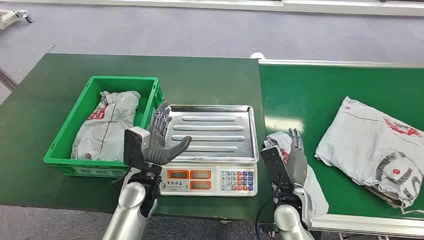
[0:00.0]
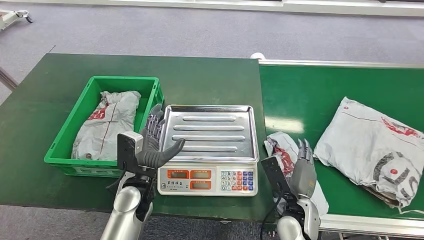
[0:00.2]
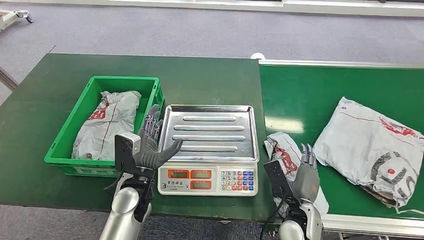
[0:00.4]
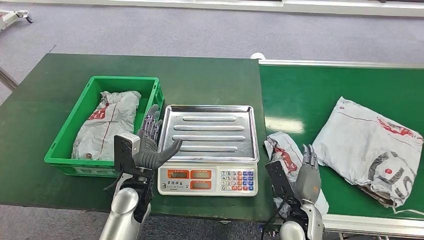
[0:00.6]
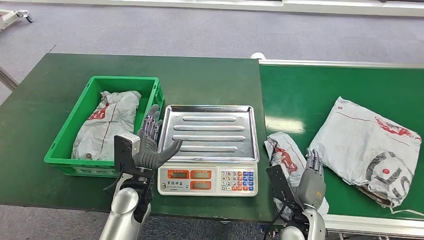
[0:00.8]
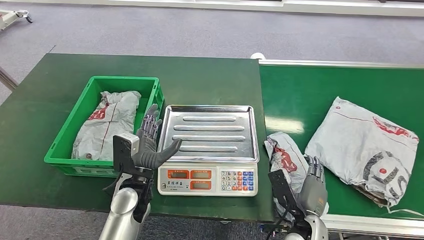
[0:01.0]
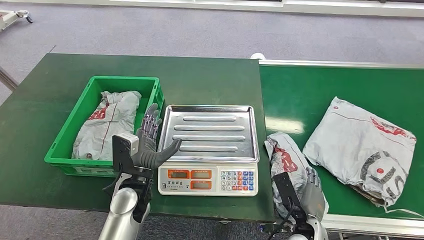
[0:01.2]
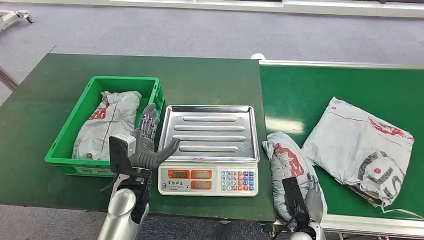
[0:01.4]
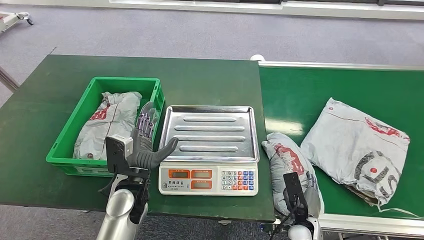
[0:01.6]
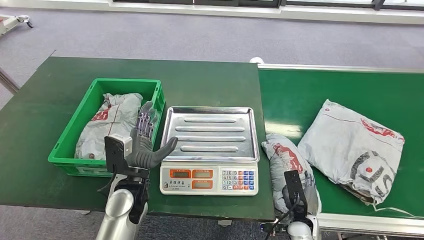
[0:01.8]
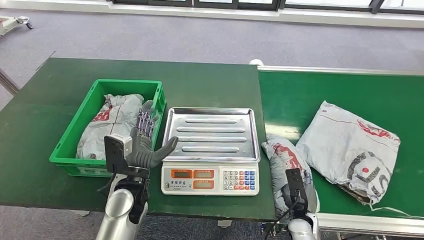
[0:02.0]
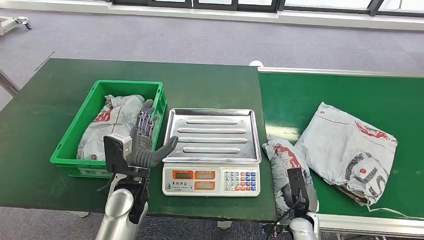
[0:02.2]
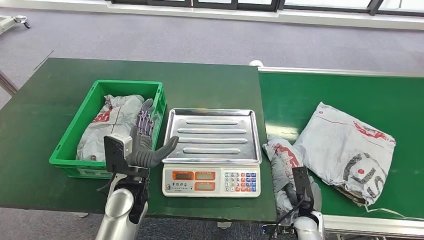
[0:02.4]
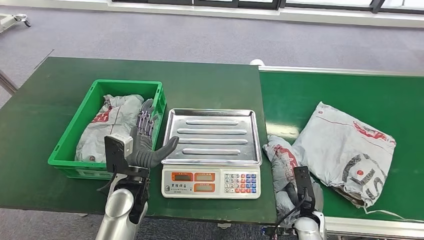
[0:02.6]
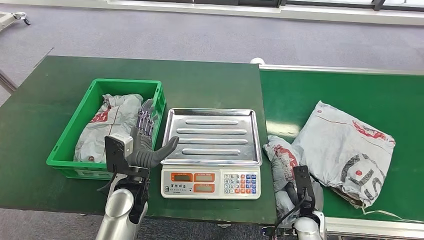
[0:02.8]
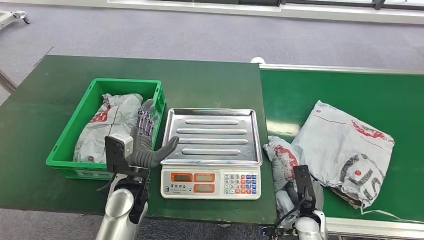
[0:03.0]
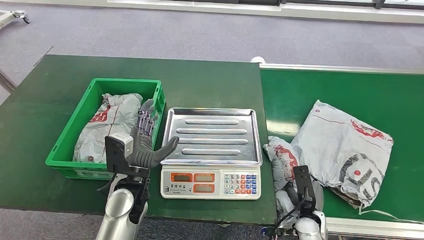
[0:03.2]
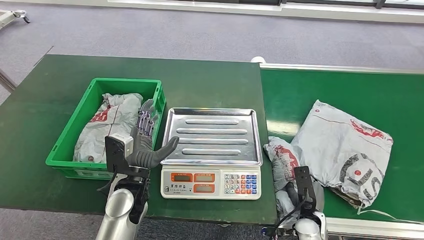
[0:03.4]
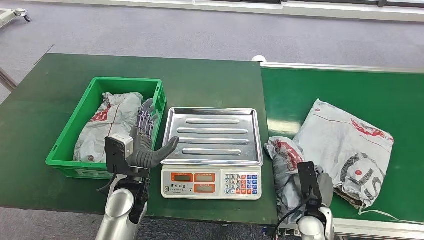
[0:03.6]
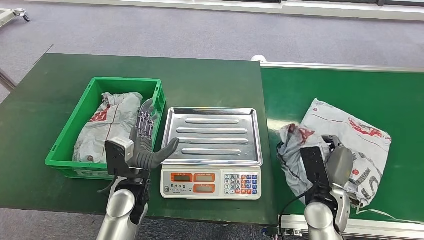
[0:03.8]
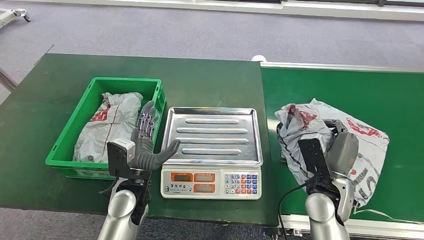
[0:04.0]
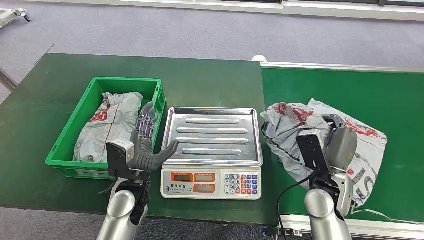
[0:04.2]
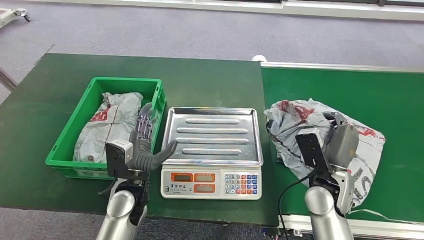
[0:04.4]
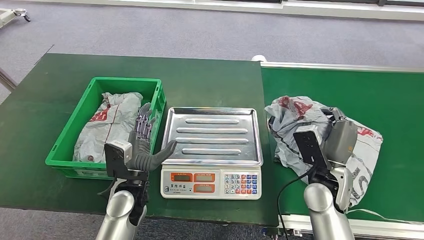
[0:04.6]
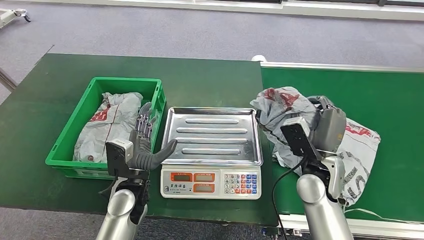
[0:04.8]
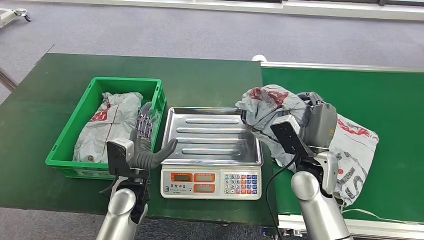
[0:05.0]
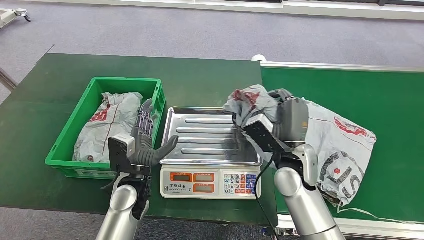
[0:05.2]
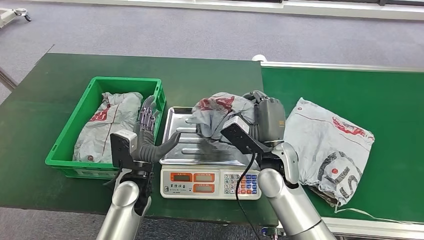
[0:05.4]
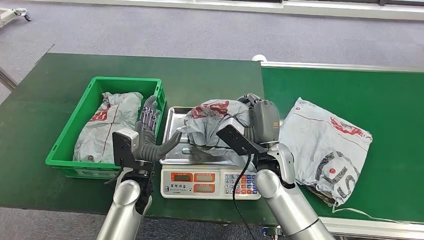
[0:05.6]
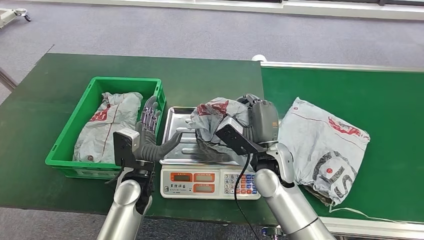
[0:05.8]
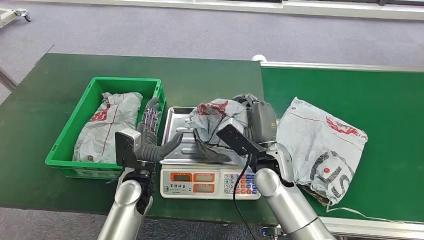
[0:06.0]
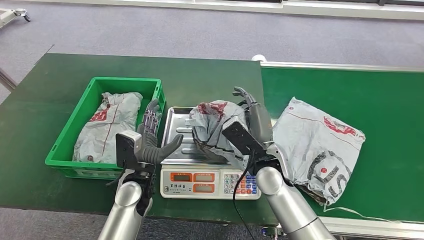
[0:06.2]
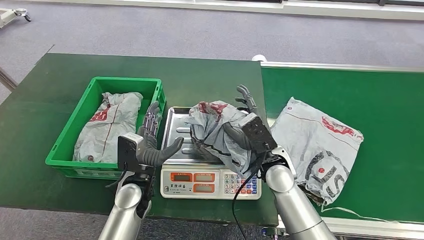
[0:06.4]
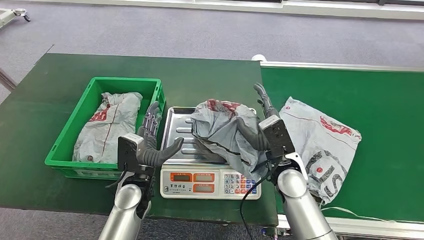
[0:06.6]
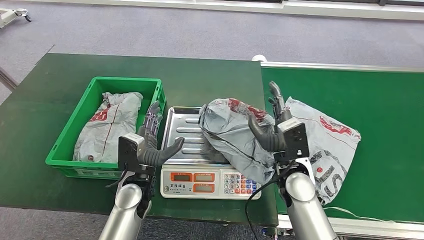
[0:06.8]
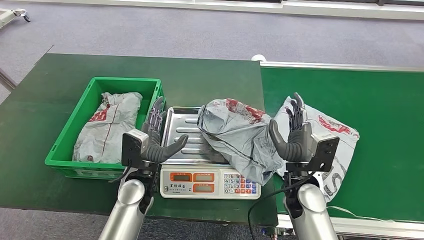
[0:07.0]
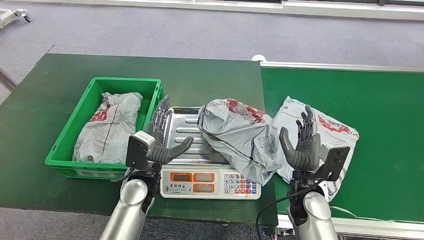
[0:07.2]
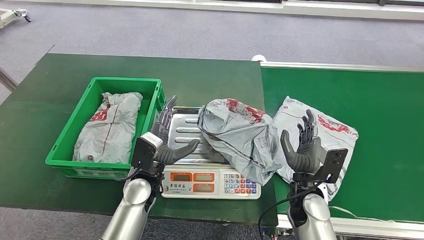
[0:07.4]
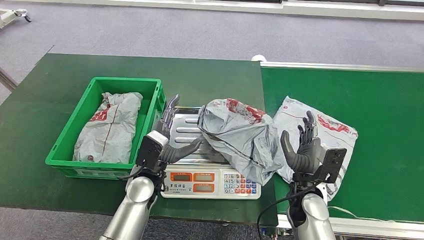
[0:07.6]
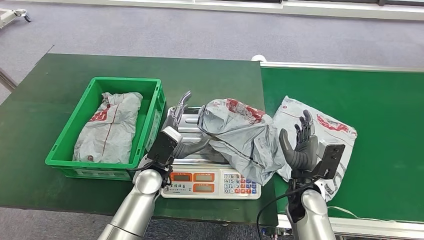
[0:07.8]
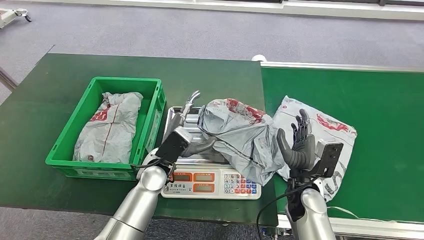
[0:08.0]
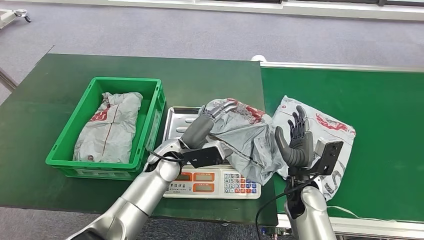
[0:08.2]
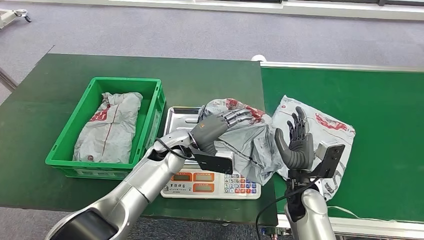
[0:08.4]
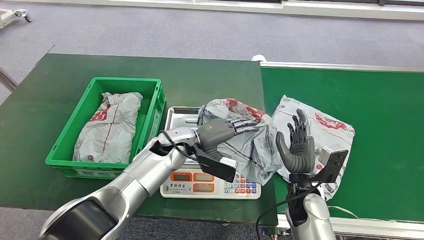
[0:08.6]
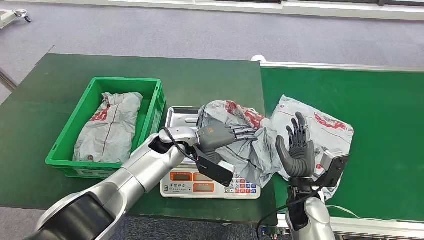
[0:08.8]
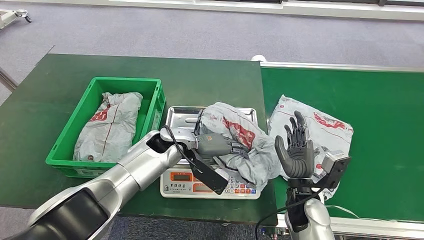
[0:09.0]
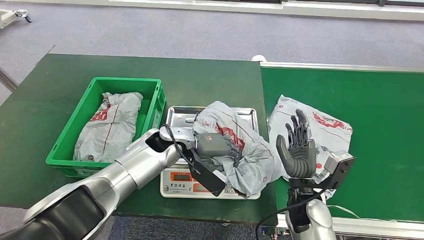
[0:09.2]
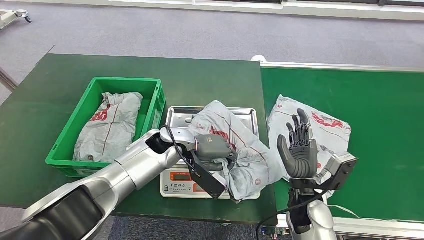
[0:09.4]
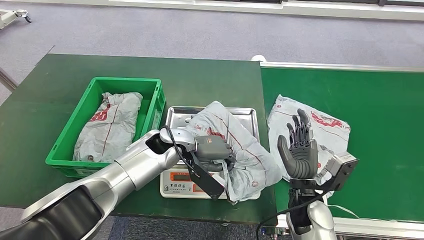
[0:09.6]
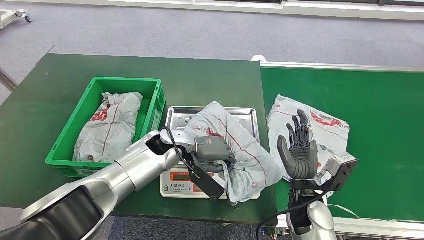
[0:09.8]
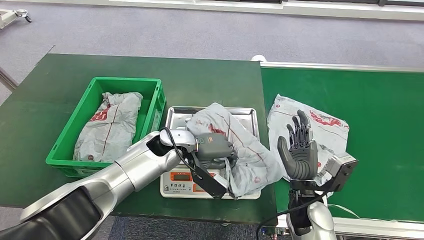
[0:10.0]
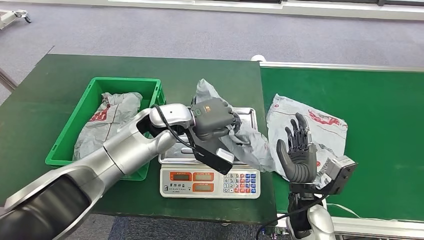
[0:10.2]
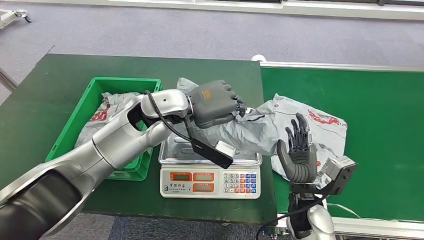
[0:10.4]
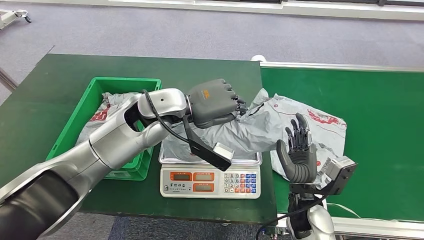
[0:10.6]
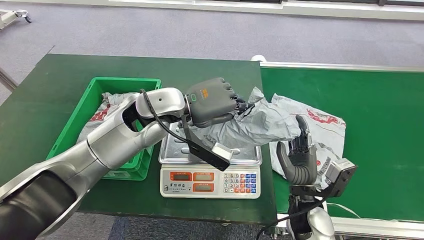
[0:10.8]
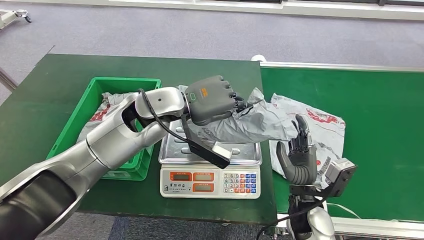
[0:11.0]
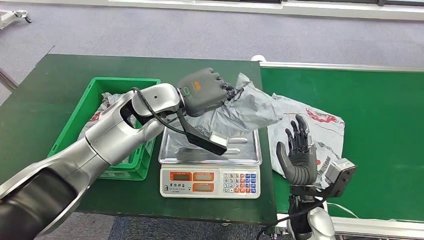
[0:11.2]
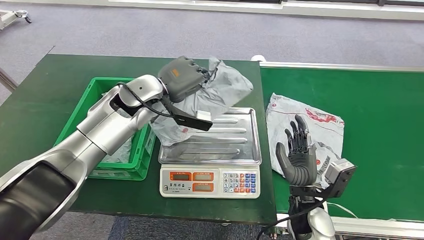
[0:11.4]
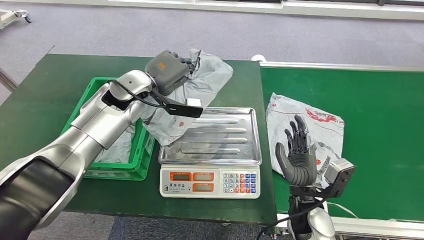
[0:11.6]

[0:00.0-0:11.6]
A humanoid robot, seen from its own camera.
Step, 0:00.0 to 0:03.8: Pick up the package from the conveyor belt.
Step, 0:04.0 to 0:06.8: Place the package onto the inbound machine.
Step, 0:07.0 to 0:10.8: Pick up the package from the inbound machine.
0:05.8 to 0:07.2: The right hand goes some 10 cm to the right and downward.
0:07.2 to 0:08.8: The left hand goes some 10 cm forward.

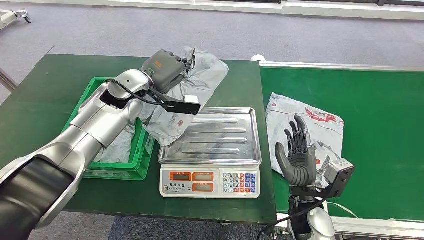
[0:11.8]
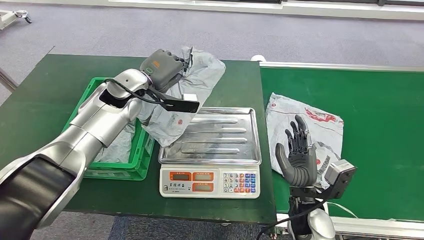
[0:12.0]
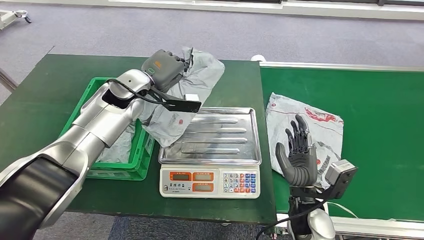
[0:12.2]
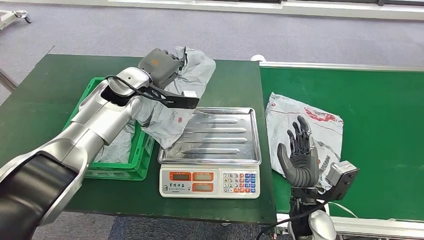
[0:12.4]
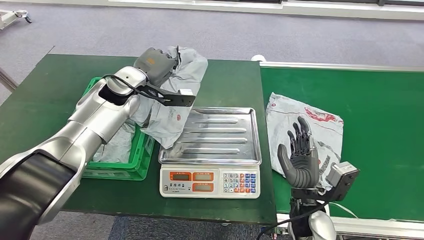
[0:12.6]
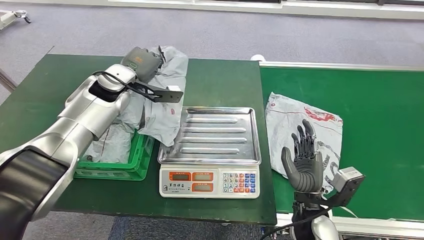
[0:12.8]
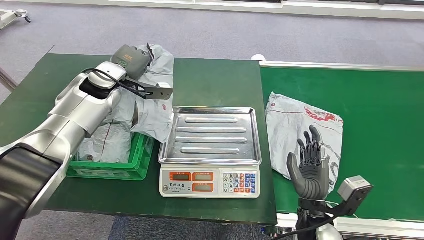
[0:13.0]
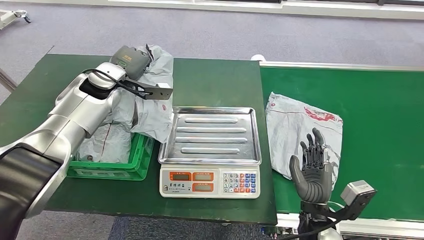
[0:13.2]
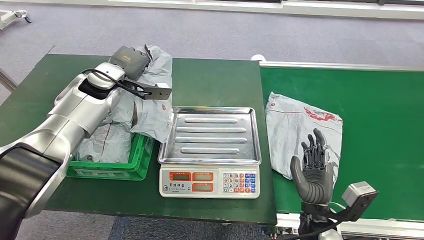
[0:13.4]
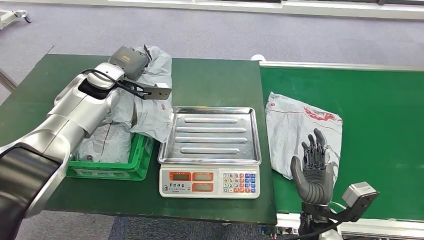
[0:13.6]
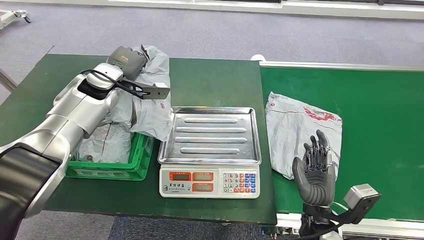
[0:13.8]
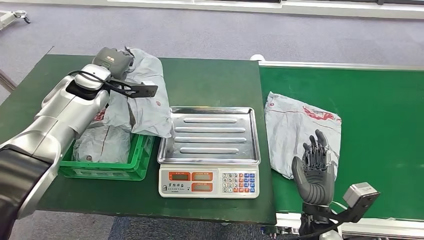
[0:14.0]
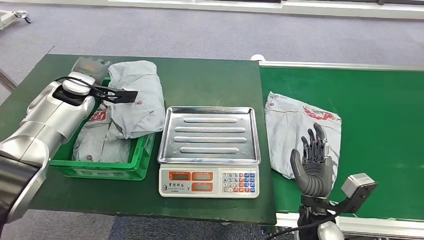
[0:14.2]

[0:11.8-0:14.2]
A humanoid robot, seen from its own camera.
Step, 0:11.8 to 0:14.2: Place the package into the parcel locker.
0:13.0 to 0:14.2: The left hand travels to the left by some 10 cm.
